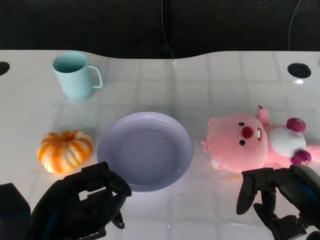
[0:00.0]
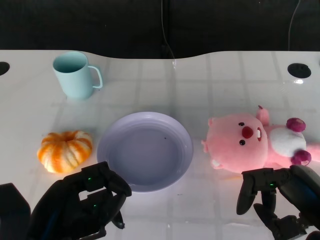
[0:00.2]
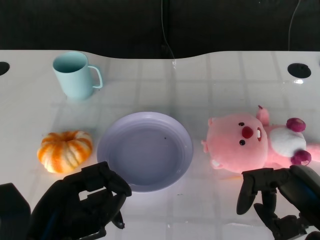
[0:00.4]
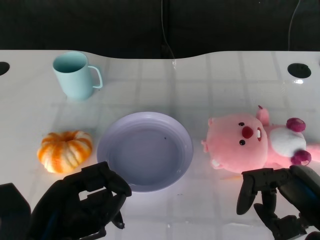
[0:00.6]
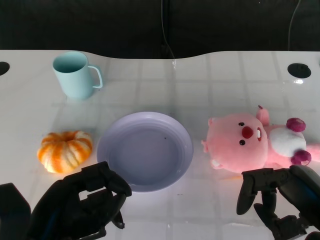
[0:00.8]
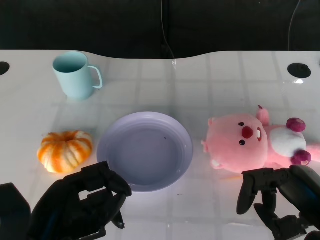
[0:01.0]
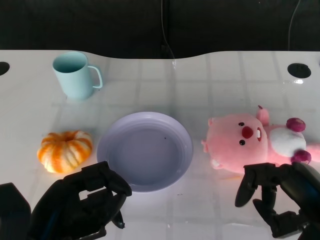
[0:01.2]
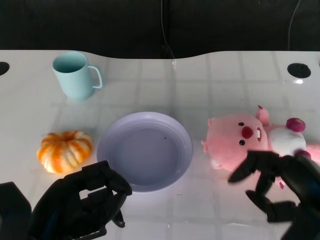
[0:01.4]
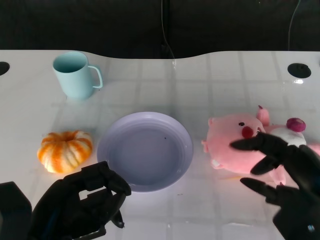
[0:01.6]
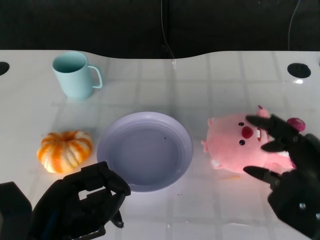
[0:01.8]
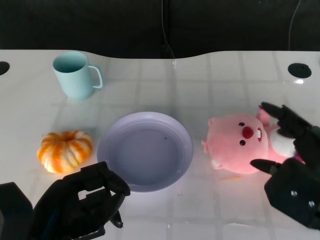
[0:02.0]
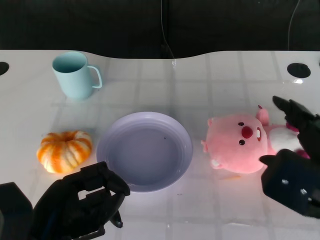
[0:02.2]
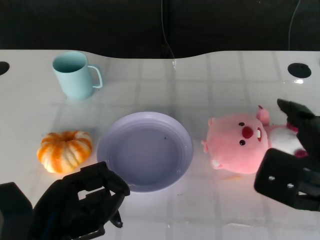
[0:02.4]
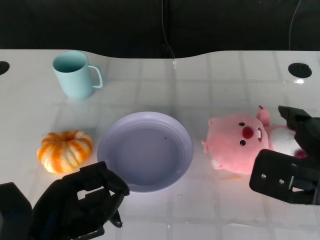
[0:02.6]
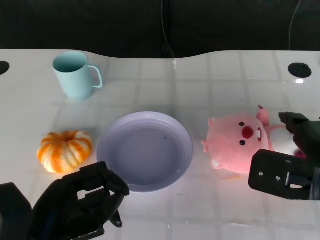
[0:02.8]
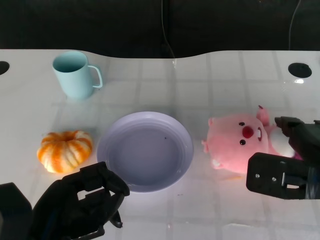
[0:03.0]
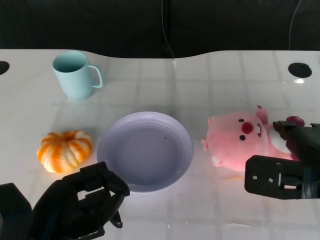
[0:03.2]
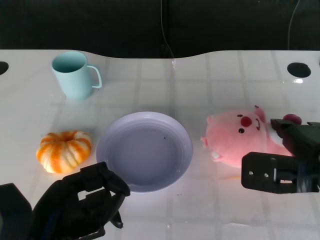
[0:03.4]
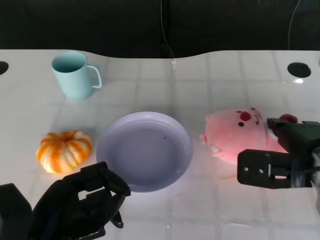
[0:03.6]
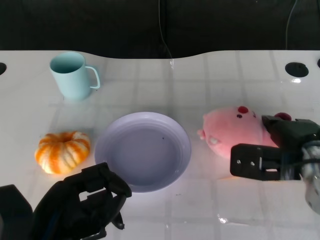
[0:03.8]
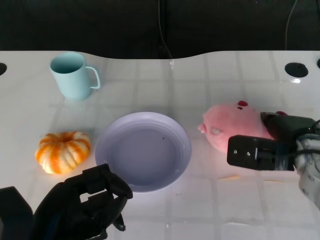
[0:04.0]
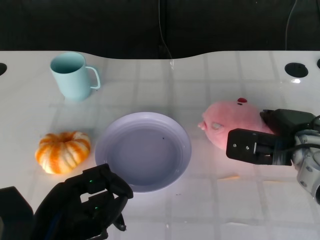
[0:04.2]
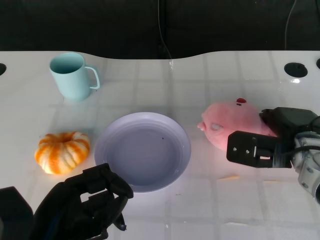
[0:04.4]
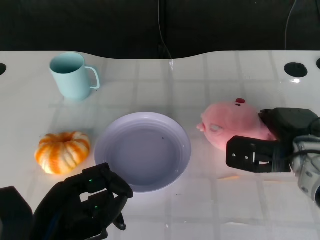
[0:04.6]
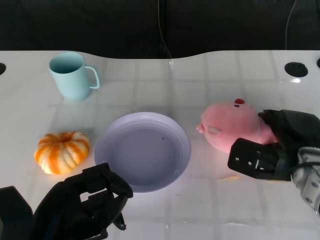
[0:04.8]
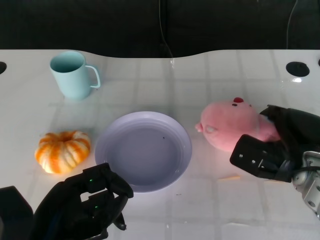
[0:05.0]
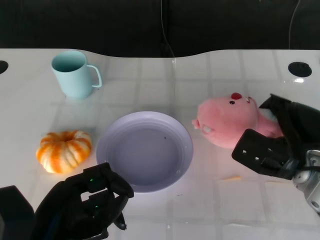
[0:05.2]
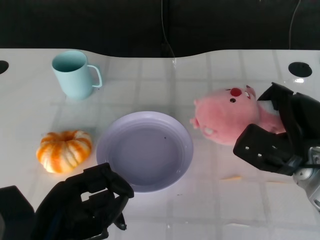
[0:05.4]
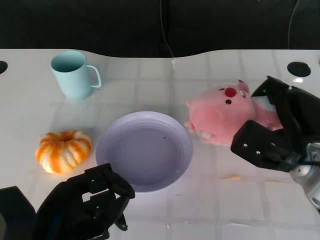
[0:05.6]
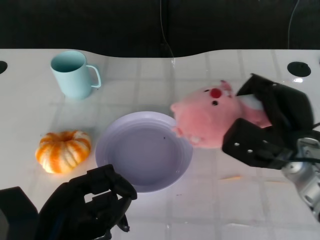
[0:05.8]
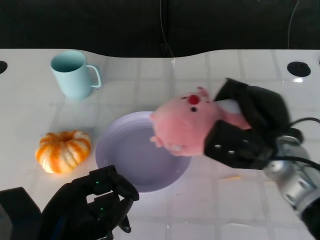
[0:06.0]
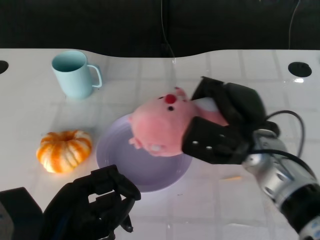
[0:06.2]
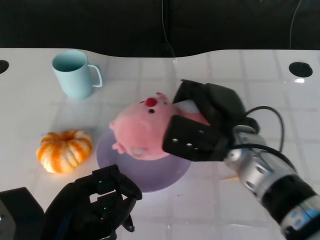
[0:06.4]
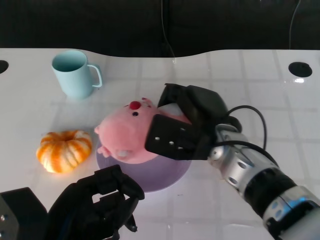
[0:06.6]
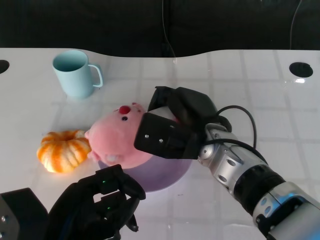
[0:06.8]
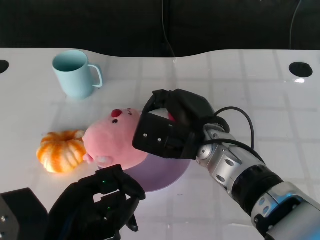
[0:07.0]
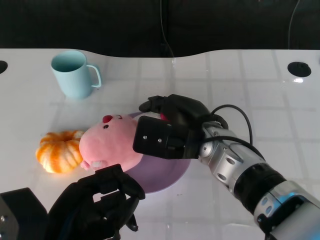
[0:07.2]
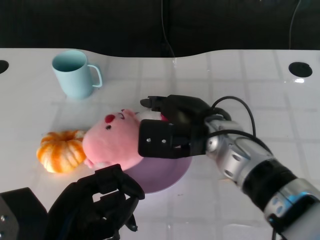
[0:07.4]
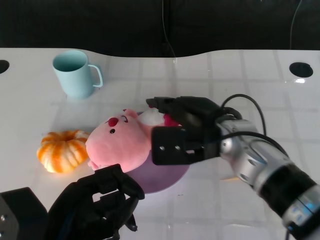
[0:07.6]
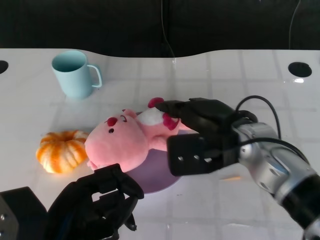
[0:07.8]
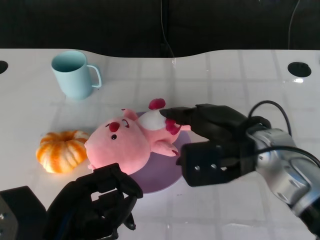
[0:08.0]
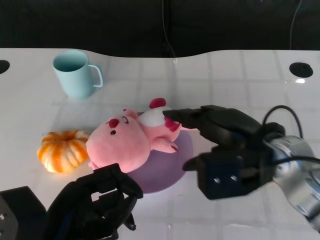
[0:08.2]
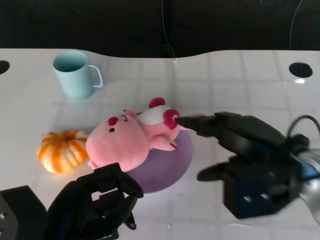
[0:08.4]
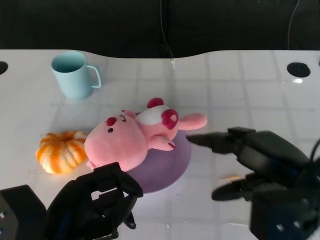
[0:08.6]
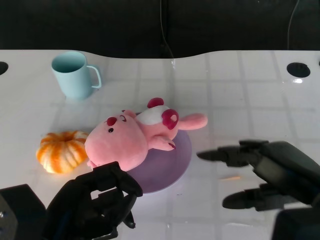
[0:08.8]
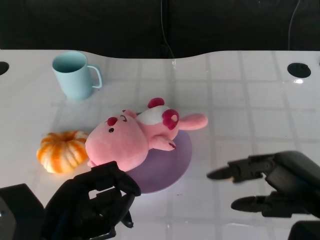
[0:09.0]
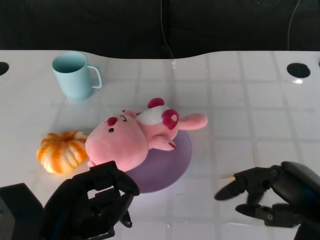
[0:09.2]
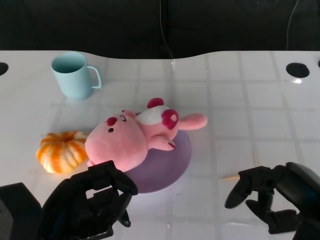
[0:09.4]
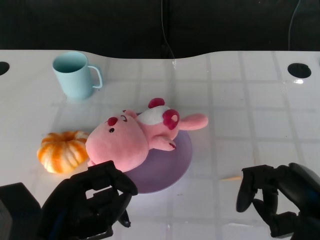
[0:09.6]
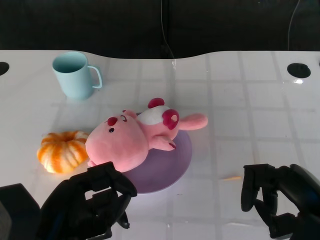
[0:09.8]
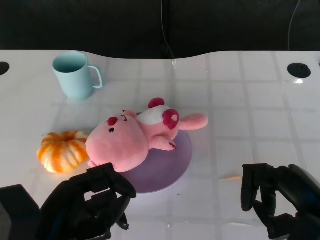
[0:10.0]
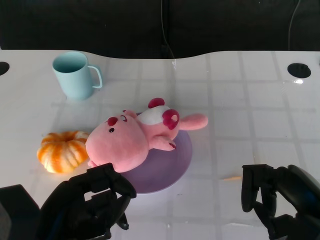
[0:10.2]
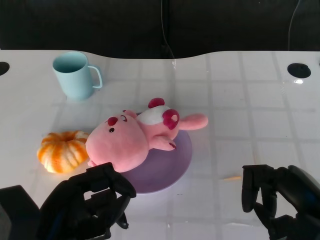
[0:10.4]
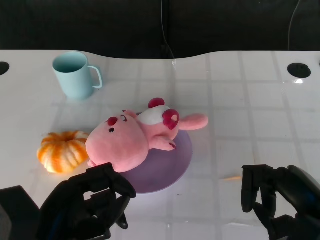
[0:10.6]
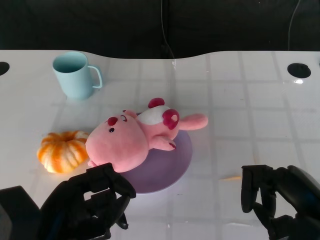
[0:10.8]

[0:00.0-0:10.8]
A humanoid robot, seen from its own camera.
Task of the whole recording: Pick up the doll on the other side of the plate and place it into the plate.
Step, 0:01.2 to 0:05.4: Grasp the pink doll with the right gripper.
Step, 0:05.6 to 0:07.8: Place the pink doll into the plate with the right gripper.
0:01.6 to 0:03.0: The right hand shifts some 5 cm forward.
0:03.0 to 0:04.6: The right hand moves forward and downward, roughly 10 cm.
0:04.6 to 0:06.2: The right hand moves to the left, approximately 5 cm.
0:06.2 to 0:07.8: The right hand moves some 10 cm to the left and comes back.
0:07.8 to 0:09.2: The right hand travels backward and to the right by some 20 cm.
0:09.2 to 0:10.8: The hands stay close to where they were, moving slightly.

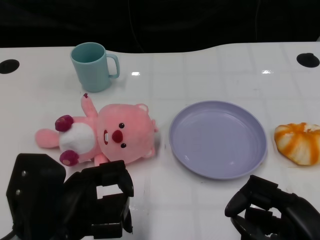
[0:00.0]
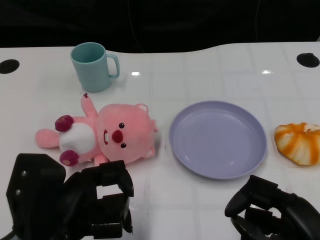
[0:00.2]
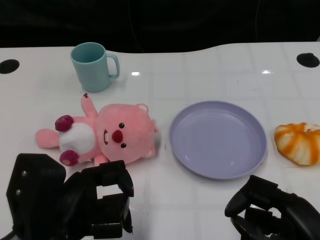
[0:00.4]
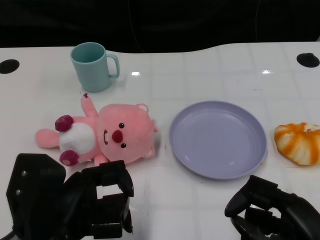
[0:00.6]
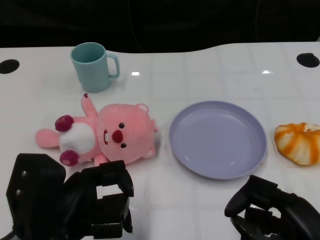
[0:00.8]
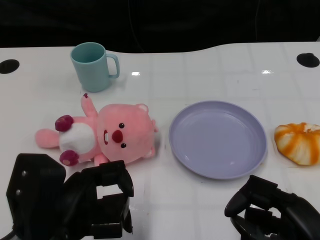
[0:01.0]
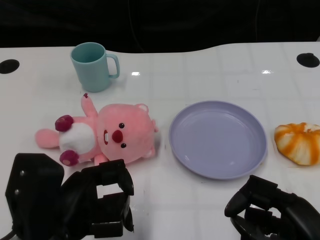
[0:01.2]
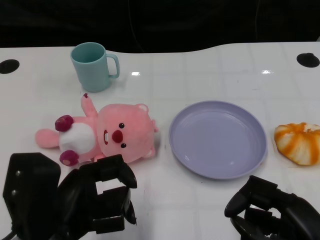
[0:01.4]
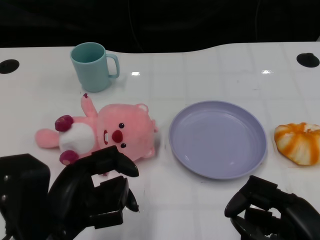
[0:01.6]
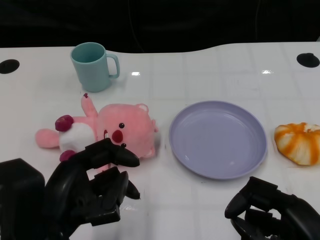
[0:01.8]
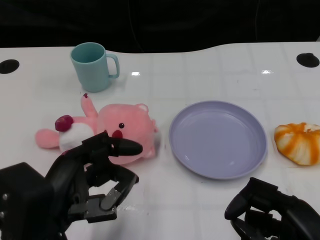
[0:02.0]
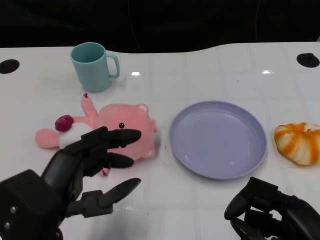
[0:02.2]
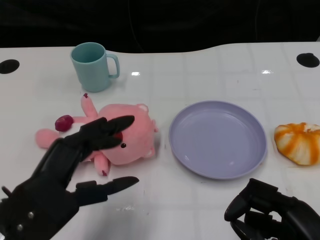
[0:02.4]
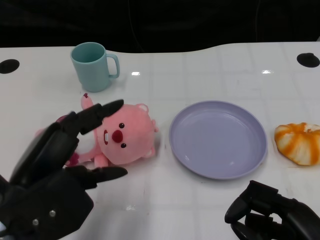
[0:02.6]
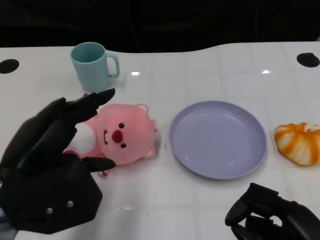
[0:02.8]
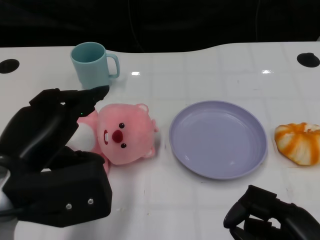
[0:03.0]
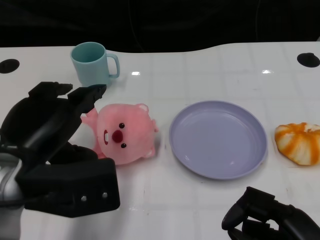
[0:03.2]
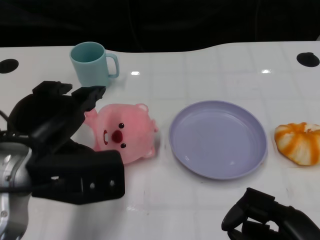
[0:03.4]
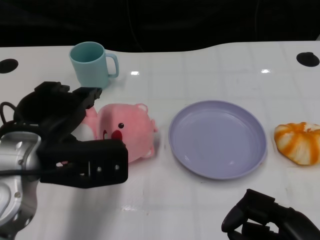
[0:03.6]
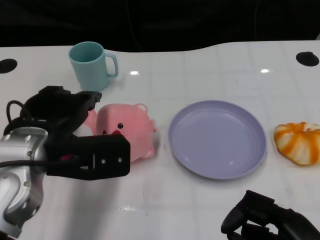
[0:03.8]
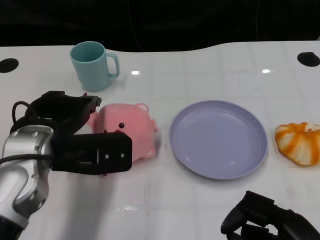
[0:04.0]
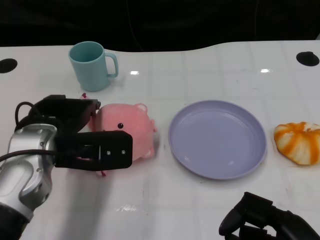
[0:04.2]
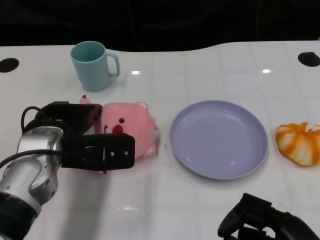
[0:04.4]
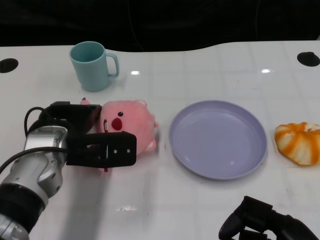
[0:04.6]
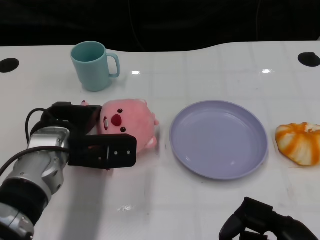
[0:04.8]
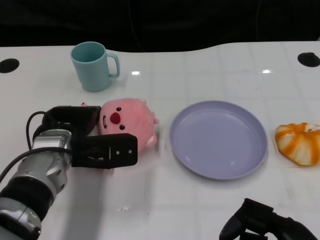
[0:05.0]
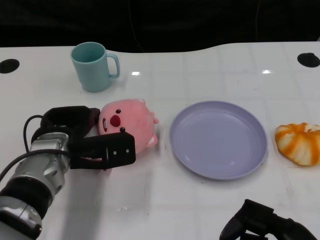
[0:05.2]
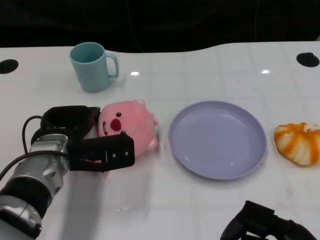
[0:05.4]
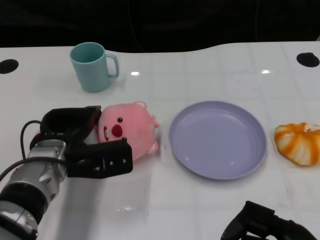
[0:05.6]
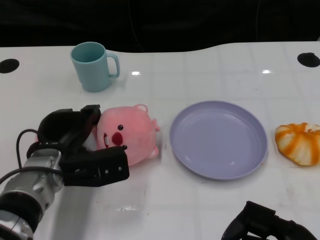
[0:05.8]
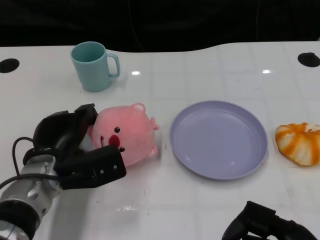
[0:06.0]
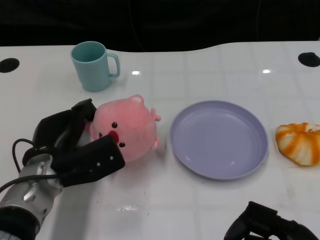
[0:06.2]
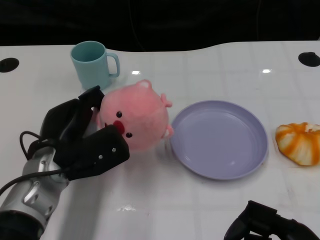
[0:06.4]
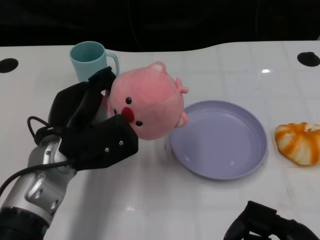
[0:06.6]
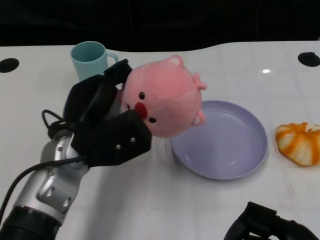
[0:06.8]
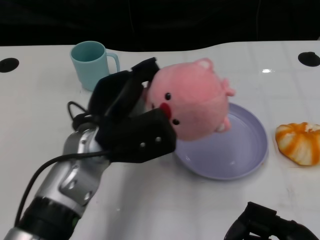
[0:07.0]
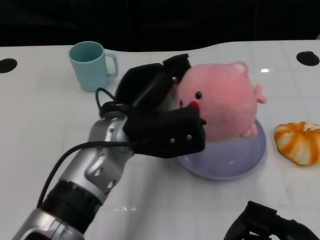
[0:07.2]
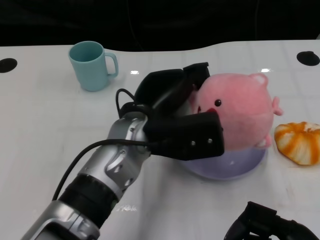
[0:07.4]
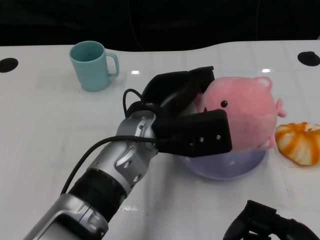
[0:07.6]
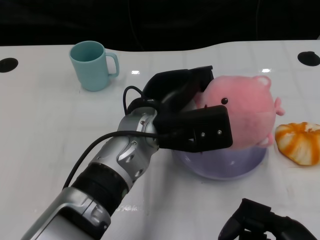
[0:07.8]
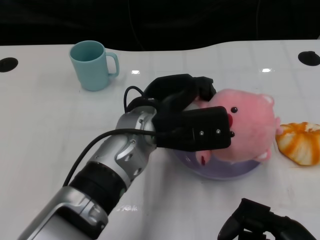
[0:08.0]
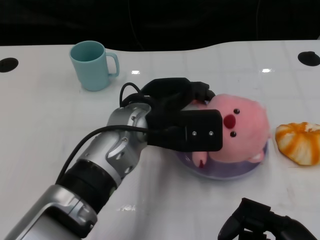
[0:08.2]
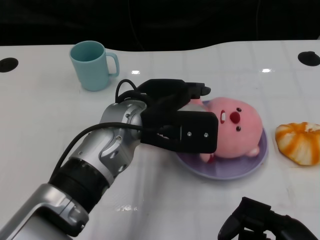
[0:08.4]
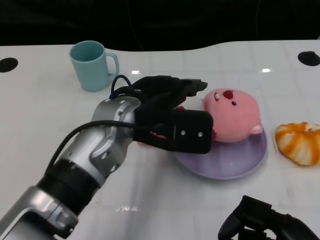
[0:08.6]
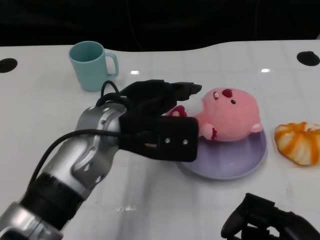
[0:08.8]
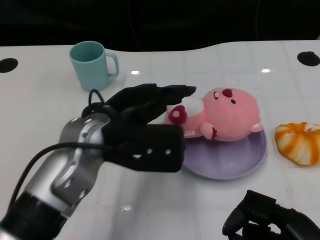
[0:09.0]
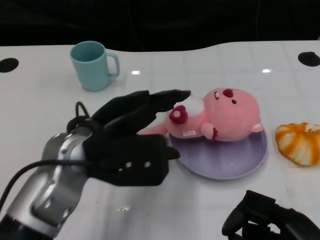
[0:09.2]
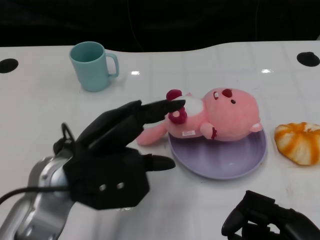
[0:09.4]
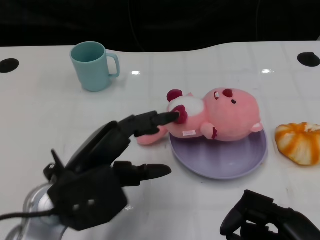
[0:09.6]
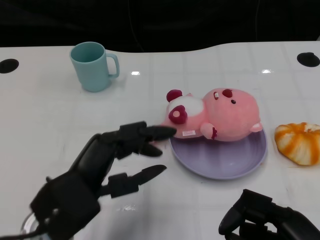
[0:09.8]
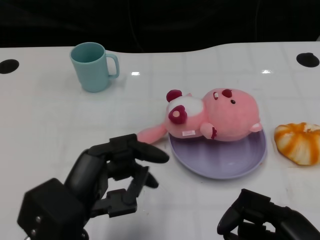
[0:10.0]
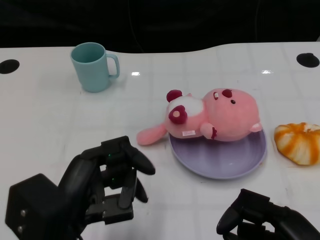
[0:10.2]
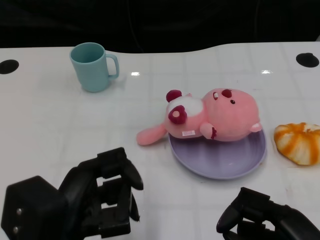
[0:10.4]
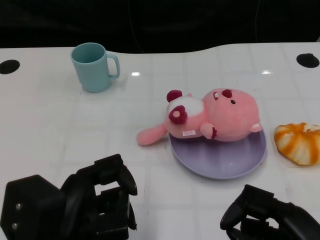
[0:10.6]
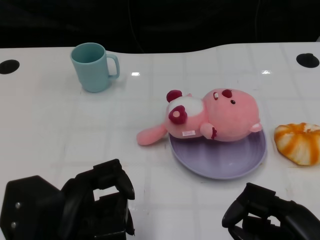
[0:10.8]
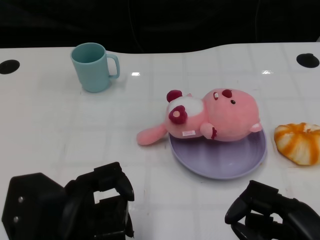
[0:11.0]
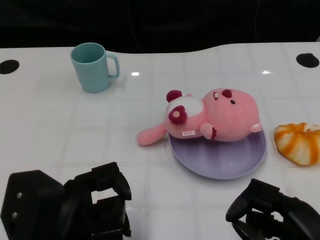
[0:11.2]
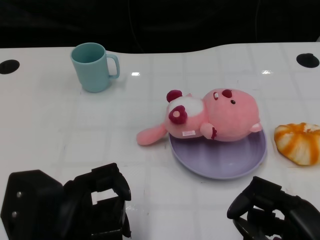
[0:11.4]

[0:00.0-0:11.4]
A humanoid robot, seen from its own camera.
Task of the whole recording: Pick up the doll on one side of the plate and place it into the plate.
Step, 0:01.2 to 0:06.2: Grasp the pink doll with the left gripper.
Step, 0:06.4 to 0:08.4: Place the pink doll into the plate with the left gripper.
0:01.4 to 0:02.8: The left hand is displaced upward by about 5 cm.
0:02.8 to 0:04.2: The left hand moves forward, some 10 cm.
0:04.2 to 0:05.6: The left hand moves downward, about 5 cm.
0:05.6 to 0:07.2: The left hand heads to the right and upward, covering approximately 10 cm.
0:08.6 to 0:10.0: The left hand travels backward and to the left by some 15 cm.
